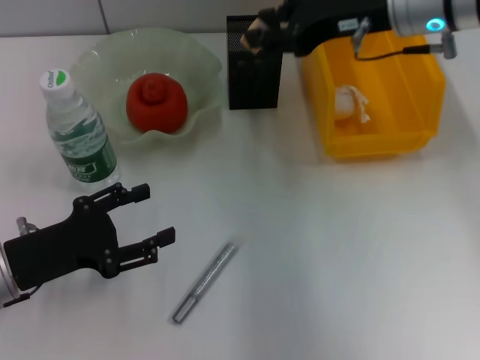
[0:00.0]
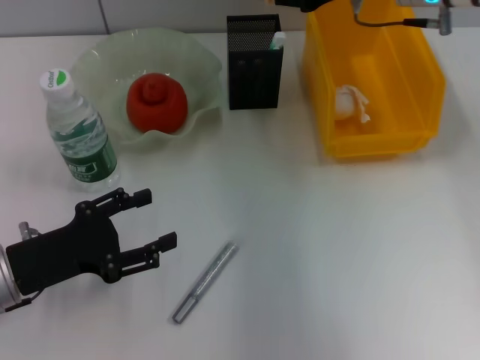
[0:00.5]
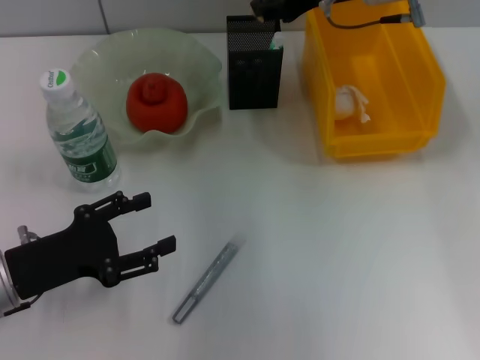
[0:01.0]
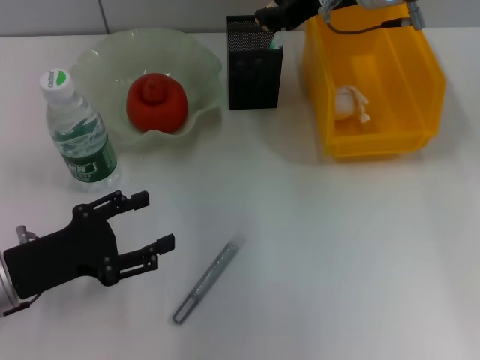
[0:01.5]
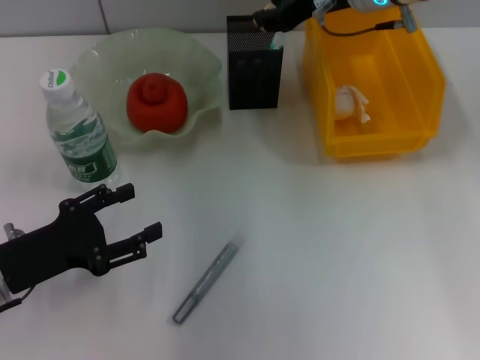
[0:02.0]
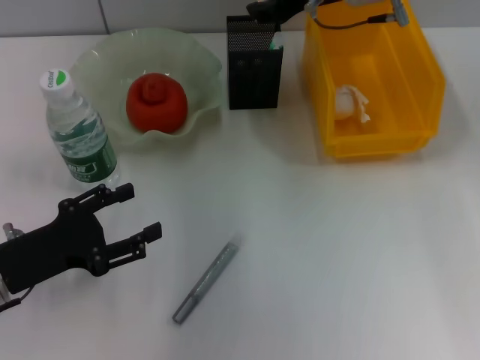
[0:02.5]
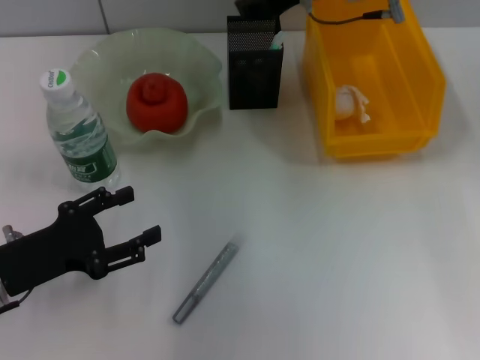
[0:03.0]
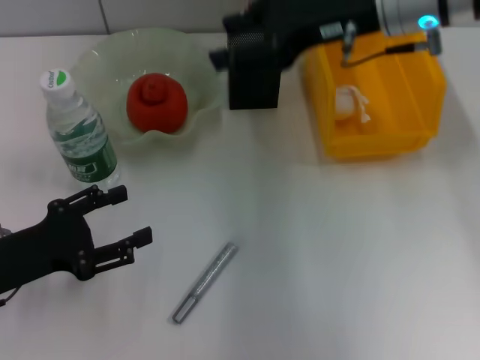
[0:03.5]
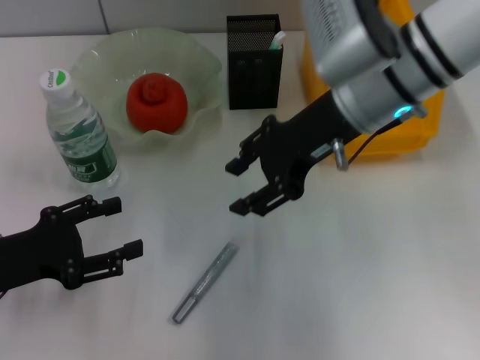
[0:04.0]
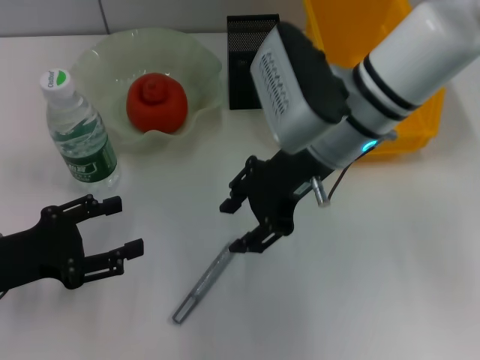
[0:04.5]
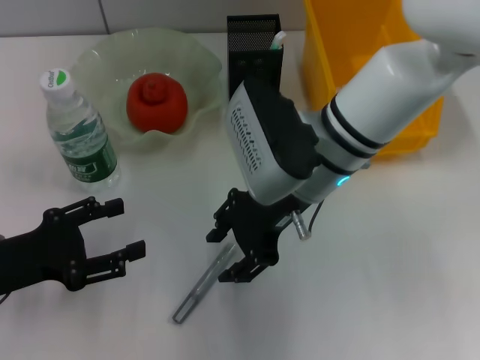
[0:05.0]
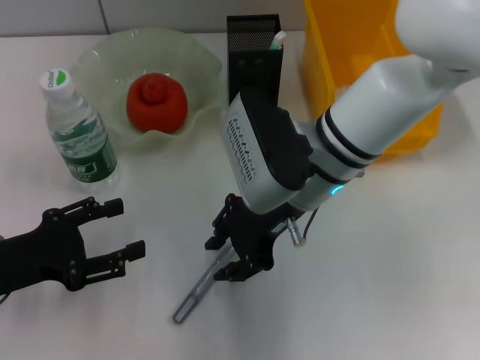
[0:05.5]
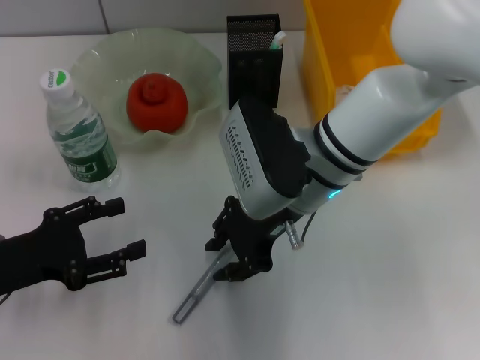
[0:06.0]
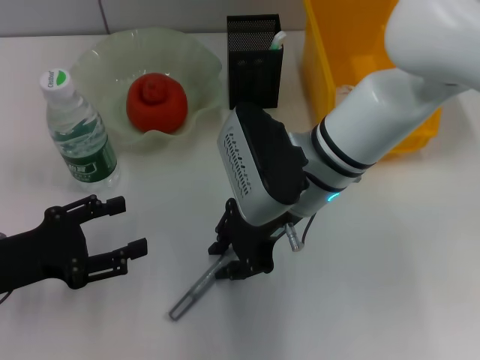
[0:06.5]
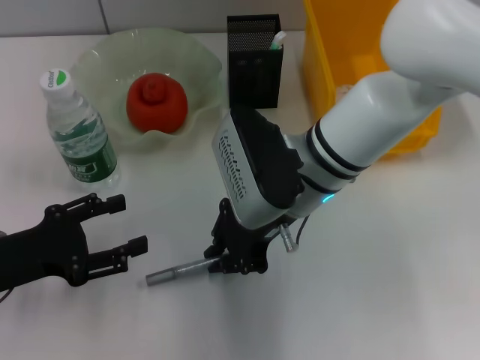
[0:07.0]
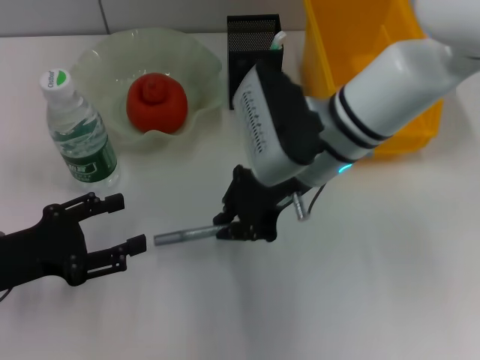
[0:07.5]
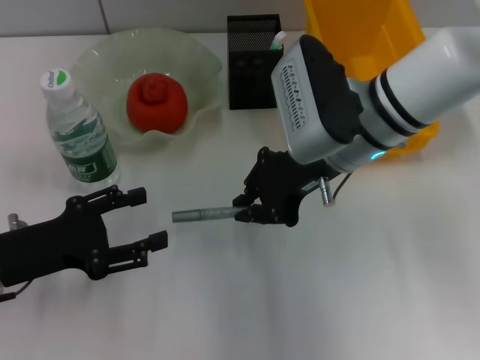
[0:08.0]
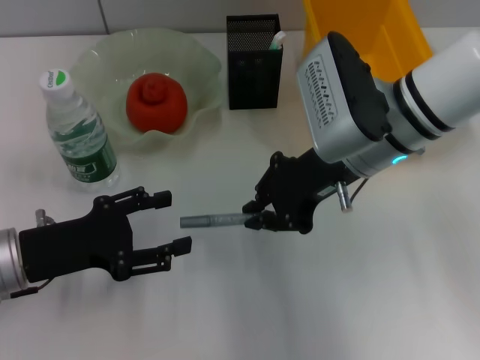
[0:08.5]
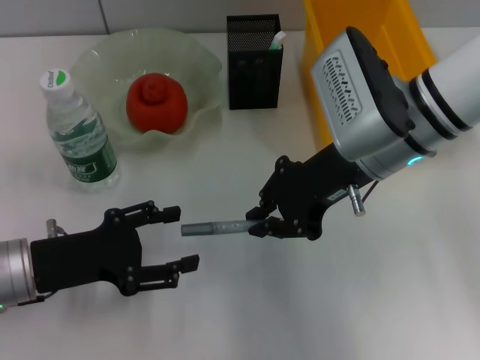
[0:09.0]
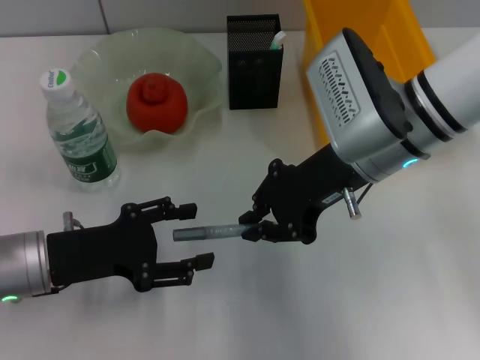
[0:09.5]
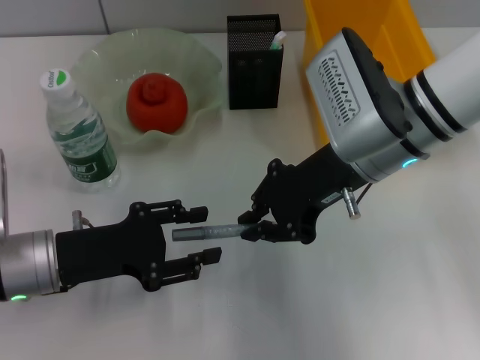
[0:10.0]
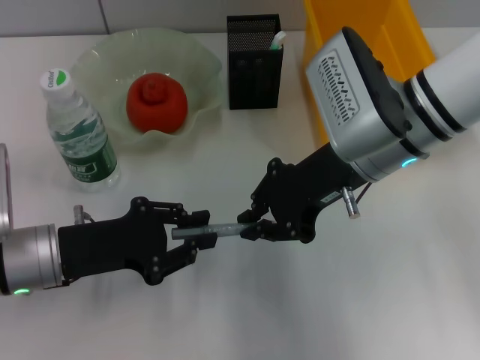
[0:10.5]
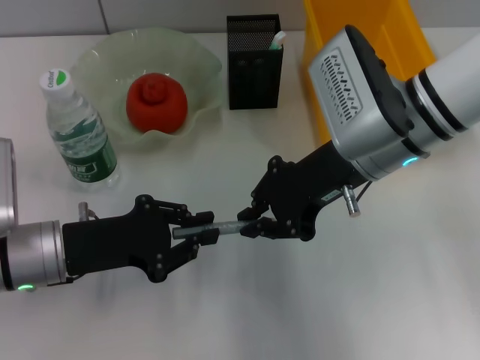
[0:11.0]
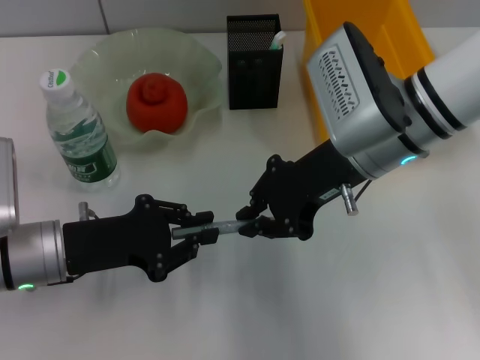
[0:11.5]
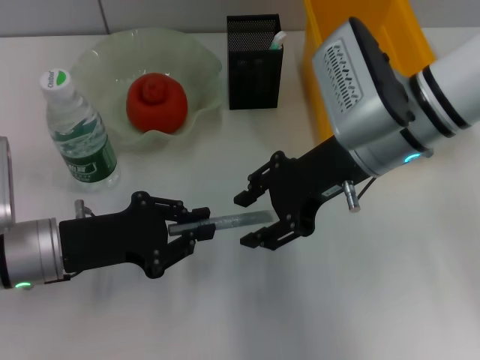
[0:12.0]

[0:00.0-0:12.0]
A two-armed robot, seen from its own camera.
Step, 0:00.0 to 0:02.5: Put the eraser into the pen holder with the right hand.
Step, 0:03.0 to 0:06.5: Grab the gray glue with the right hand.
Step, 0:07.0 to 0:11.5: Pass the gray glue from the right hand to the left hand.
0:00.0 to 0:02.0: The right gripper travels forward by roughly 5 cm.
0:02.0 to 0:04.0: The right gripper is displaced backward by some 10 cm.
0:04.0 to 0:06.0: The right gripper moves downward and to the left, roughly 10 cm.
0:06.0 to 0:08.0: The right gripper ends up about 5 cm from where it was, and closes.
0:08.0 to 0:10.0: The left gripper changes place by approximately 5 cm.
0:10.0 to 0:12.0: The right gripper opens. The left gripper closes.

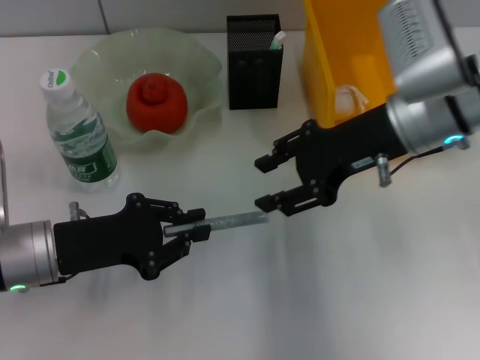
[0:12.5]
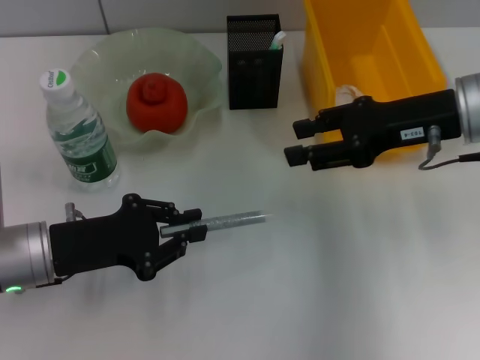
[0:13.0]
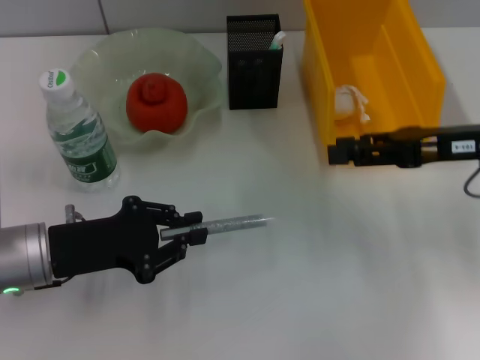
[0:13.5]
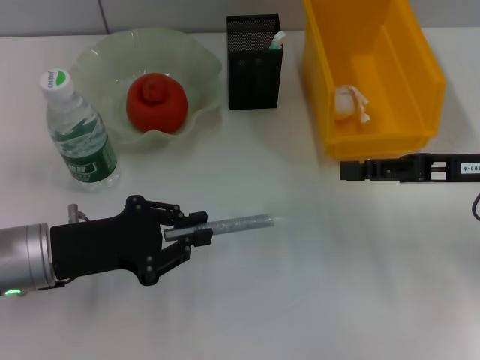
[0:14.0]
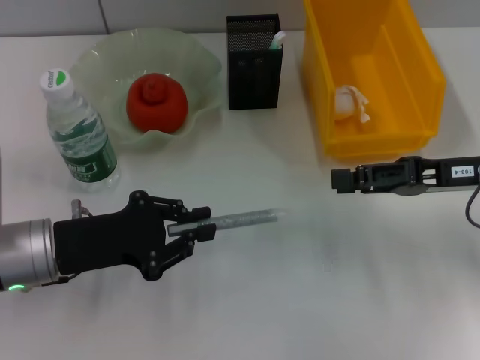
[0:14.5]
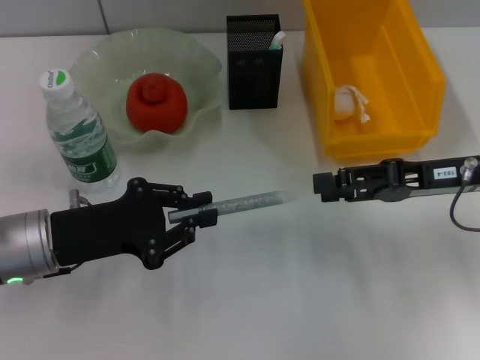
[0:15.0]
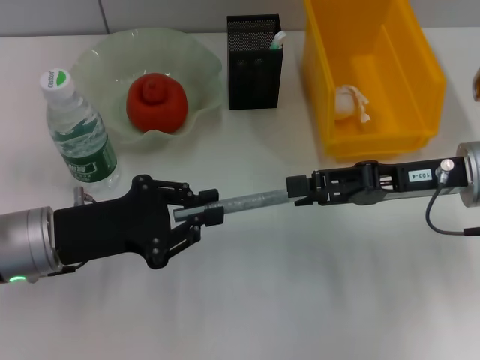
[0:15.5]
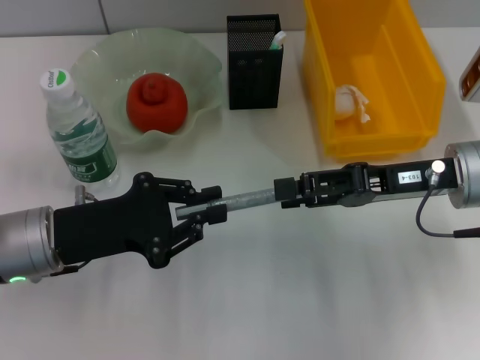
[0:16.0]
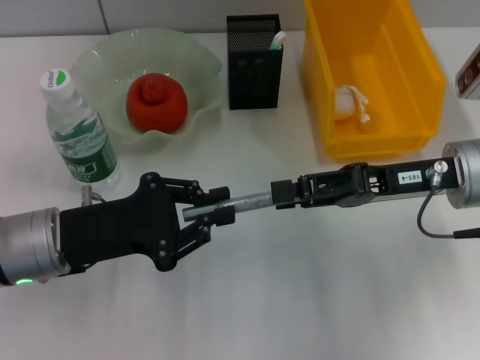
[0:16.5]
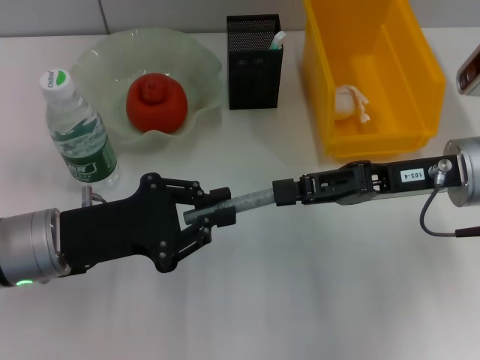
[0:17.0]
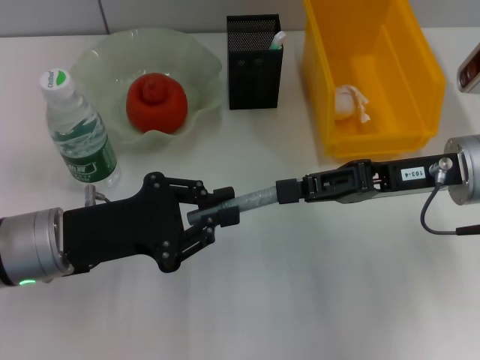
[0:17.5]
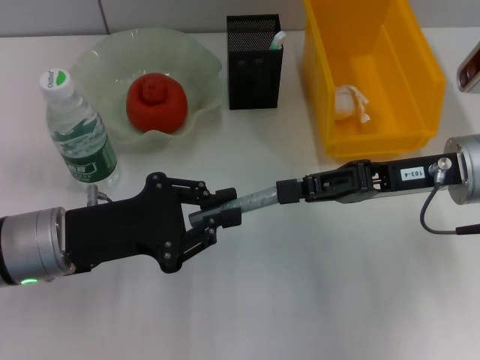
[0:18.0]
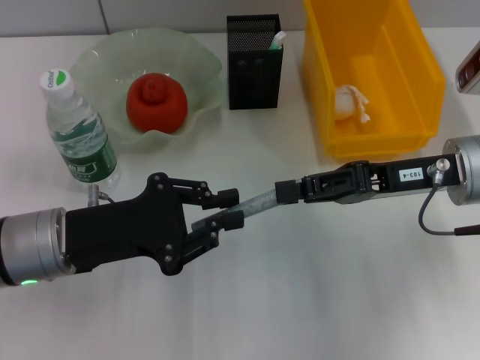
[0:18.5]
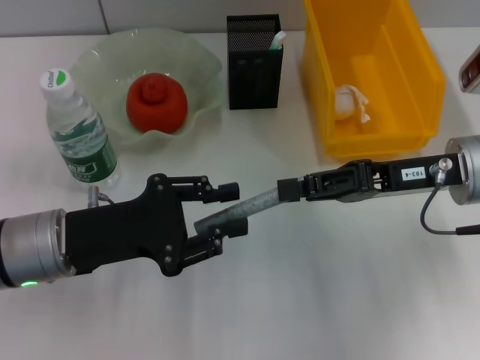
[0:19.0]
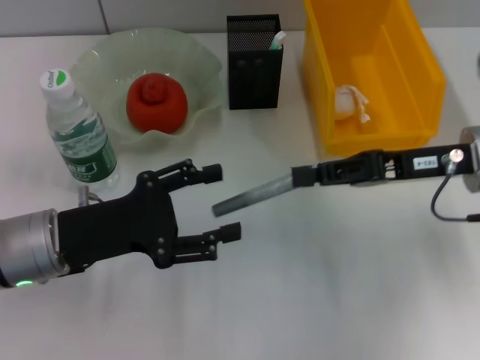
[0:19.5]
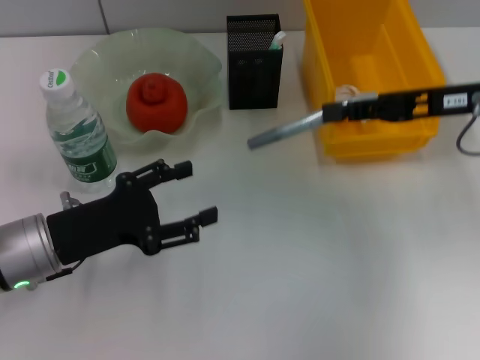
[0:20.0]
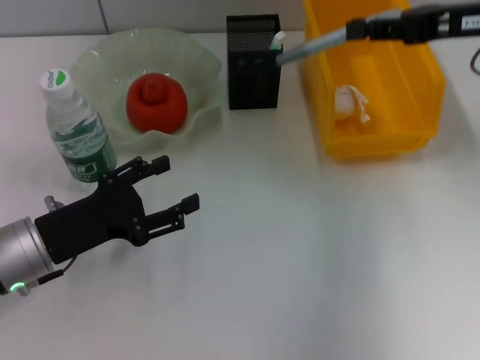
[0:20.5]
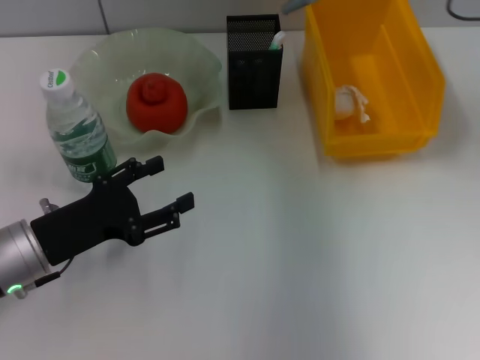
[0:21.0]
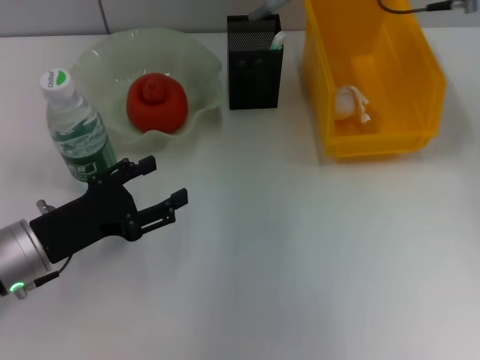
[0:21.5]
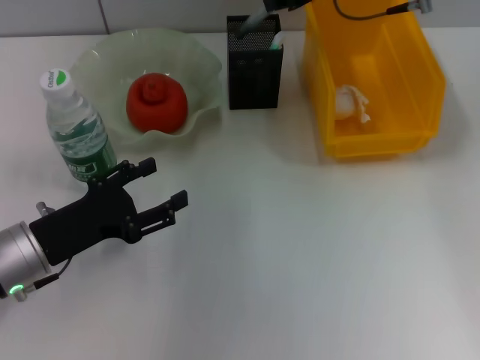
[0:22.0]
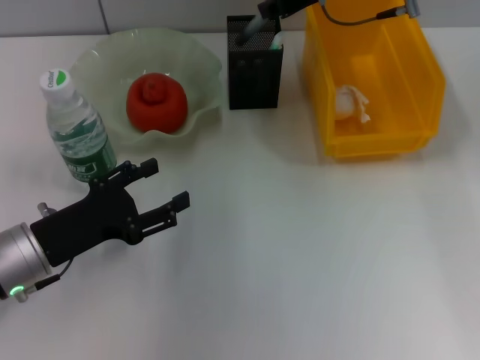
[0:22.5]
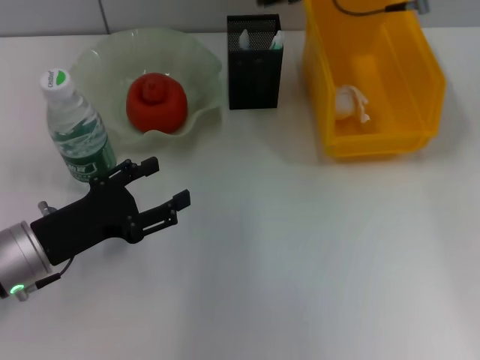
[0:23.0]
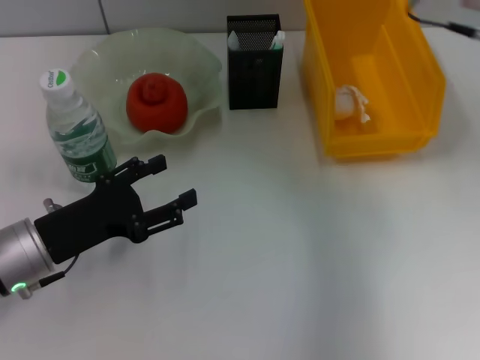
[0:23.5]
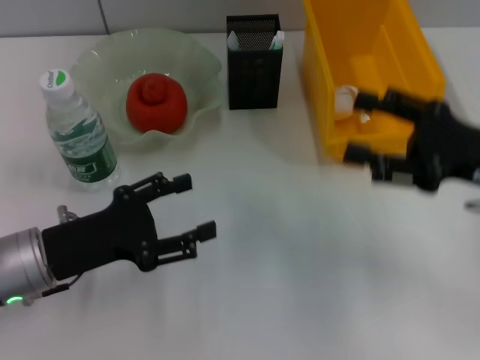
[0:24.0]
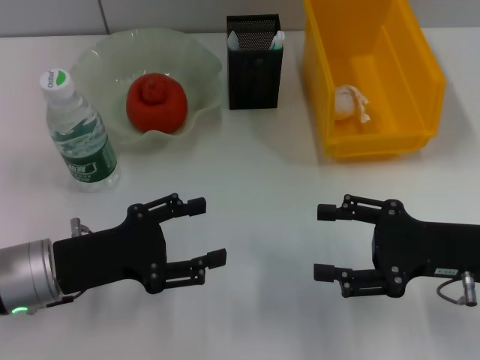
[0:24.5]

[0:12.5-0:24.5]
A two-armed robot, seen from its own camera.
Step, 0:12.5 to 0:18.5: Pass the gray glue from the left hand to the right hand.
Step, 0:19.0 to 0:22.5: Place the gray glue into the pen holder with the right hand.
0:12.5 to 0:14.5: The right gripper moves to the right and downward, some 10 cm.
0:14.5 to 0:16.5: The right gripper is displaced to the left by approximately 5 cm.
0:16.5 to 0:18.5: The right gripper closes.
0:18.5 to 0:20.5: The right gripper heads upward, forward and to the right, covering approximately 15 cm. The left gripper opens.
0:20.5 to 0:22.5: The right gripper moves to the left and forward, roughly 15 cm.
0:22.5 to 0:24.5: The right gripper shifts about 30 cm backward, downward and to the right, and opens its fingers.

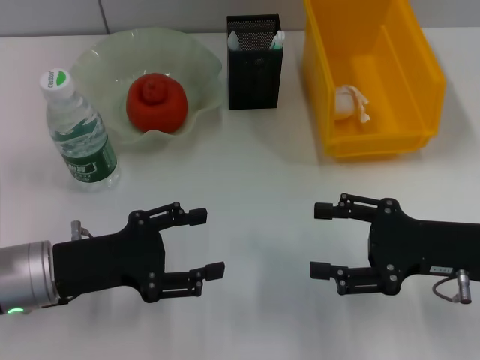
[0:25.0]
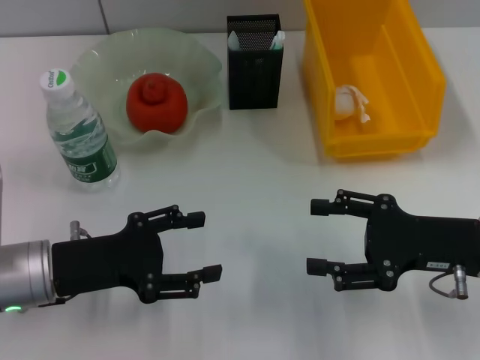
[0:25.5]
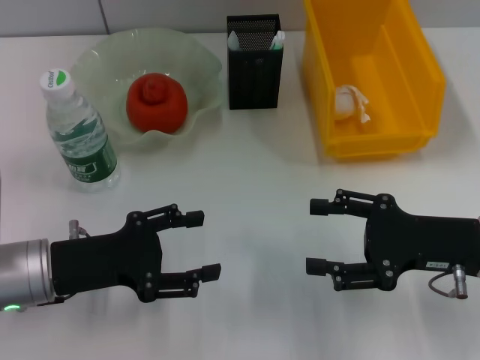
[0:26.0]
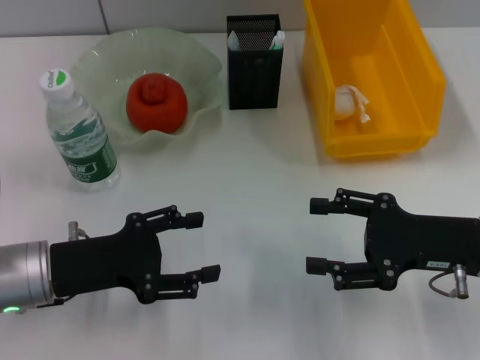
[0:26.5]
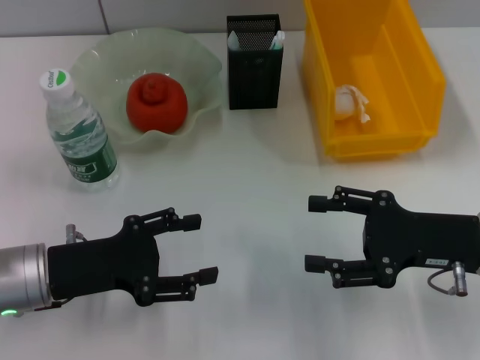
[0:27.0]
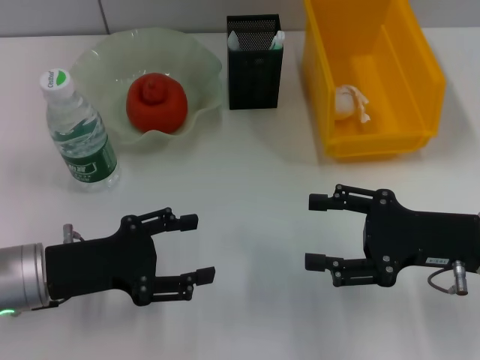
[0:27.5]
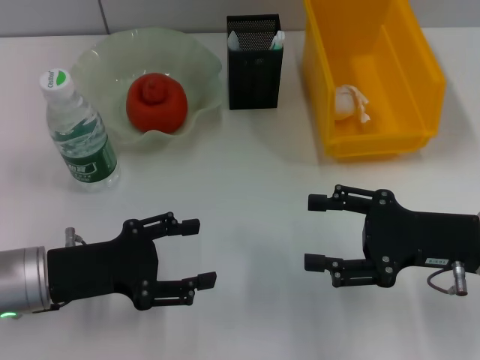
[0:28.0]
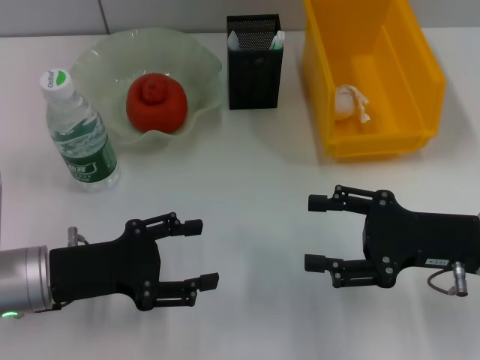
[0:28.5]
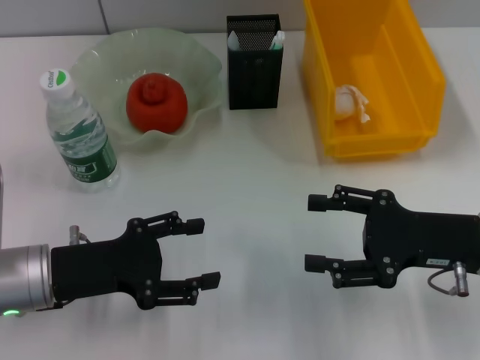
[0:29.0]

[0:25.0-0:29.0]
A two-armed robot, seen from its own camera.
0:25.0 to 0:29.0: Neither gripper changes place.
